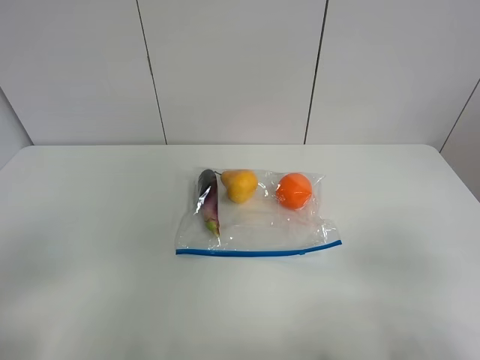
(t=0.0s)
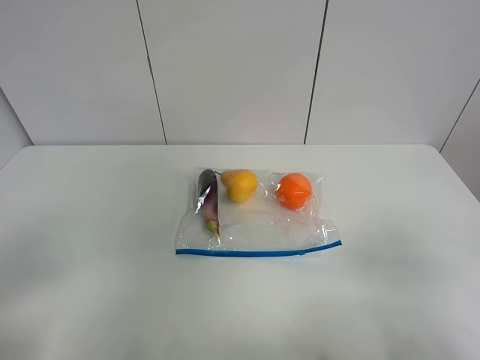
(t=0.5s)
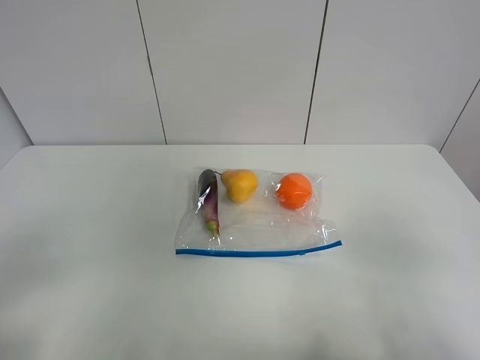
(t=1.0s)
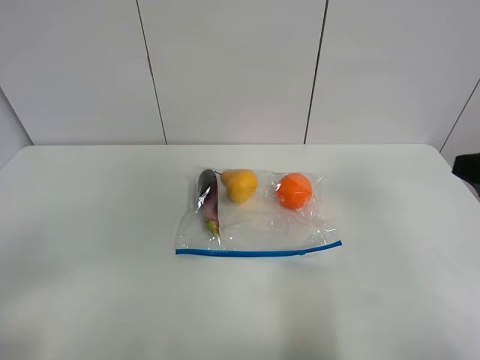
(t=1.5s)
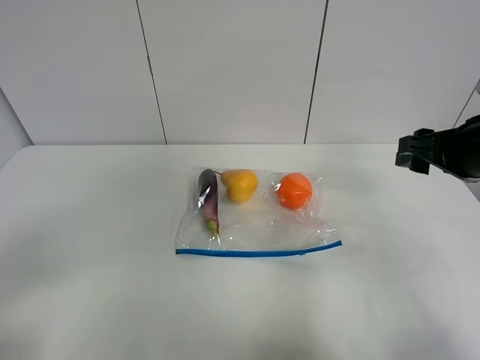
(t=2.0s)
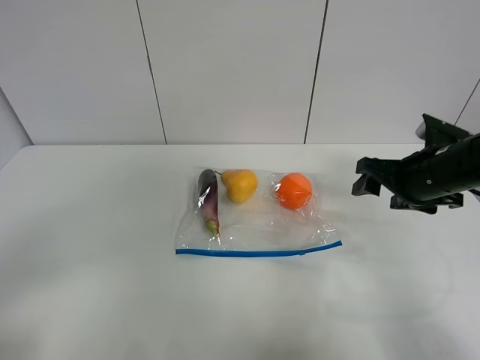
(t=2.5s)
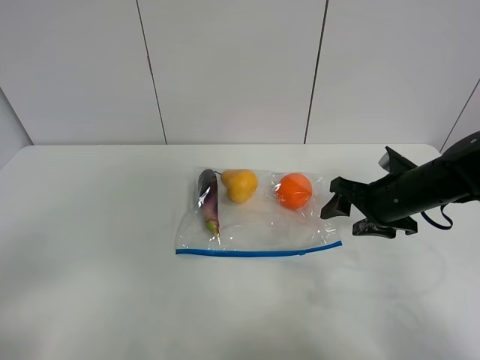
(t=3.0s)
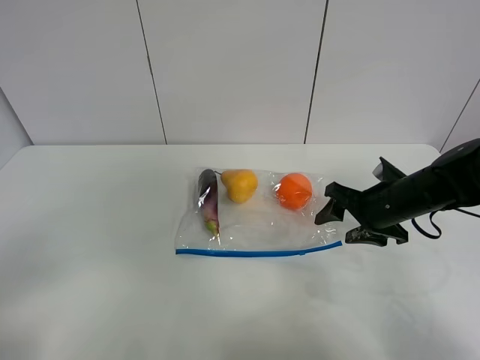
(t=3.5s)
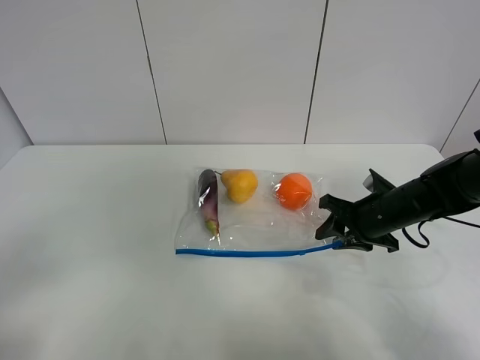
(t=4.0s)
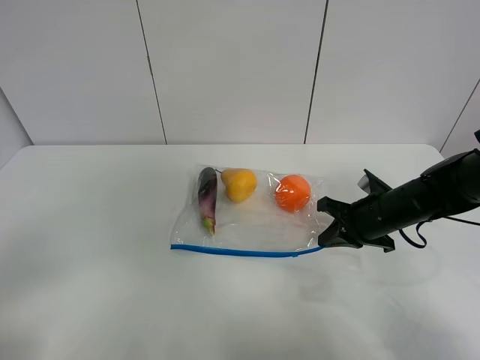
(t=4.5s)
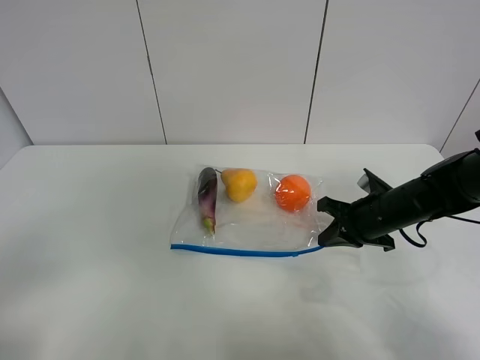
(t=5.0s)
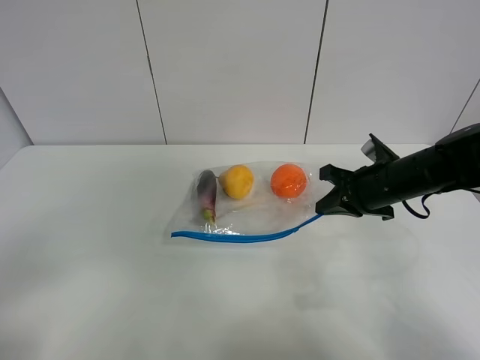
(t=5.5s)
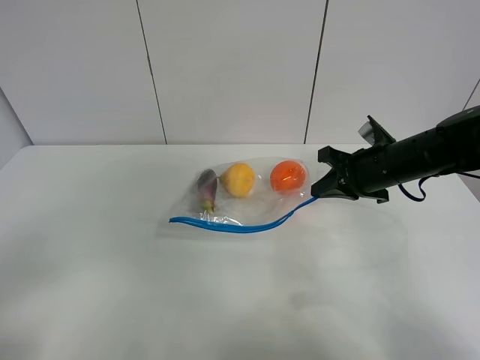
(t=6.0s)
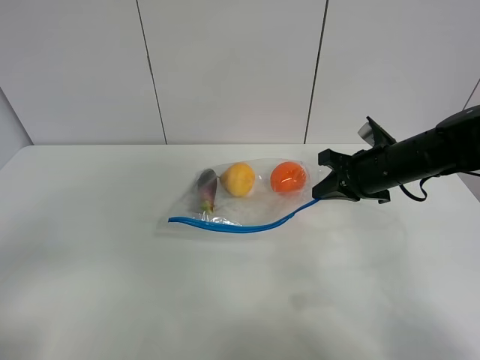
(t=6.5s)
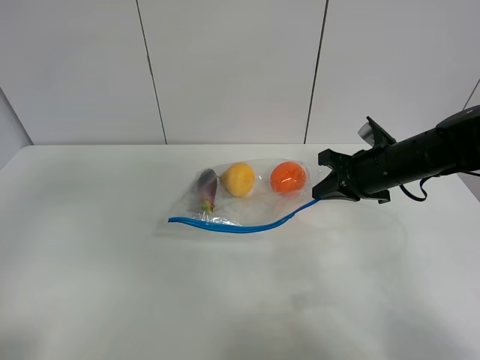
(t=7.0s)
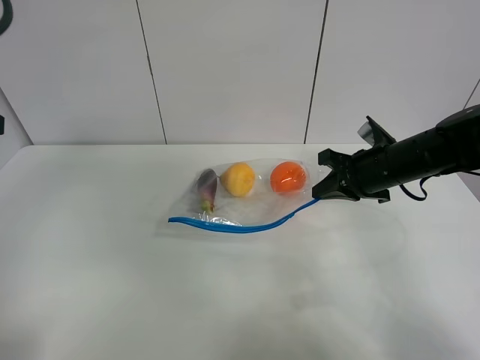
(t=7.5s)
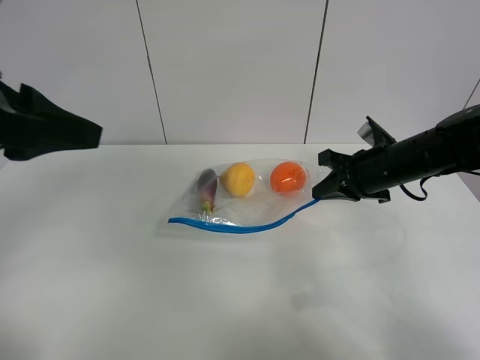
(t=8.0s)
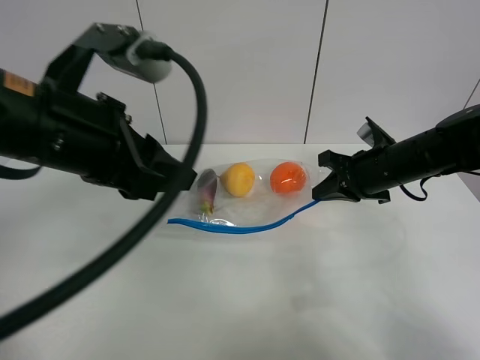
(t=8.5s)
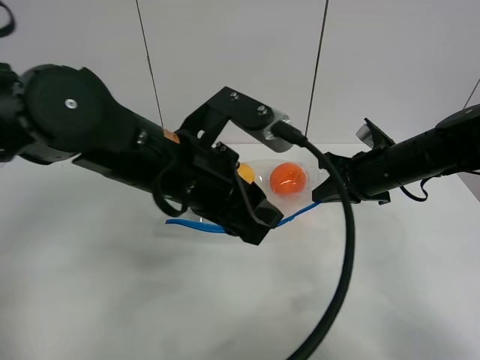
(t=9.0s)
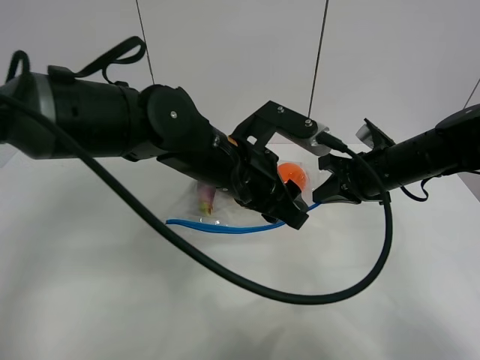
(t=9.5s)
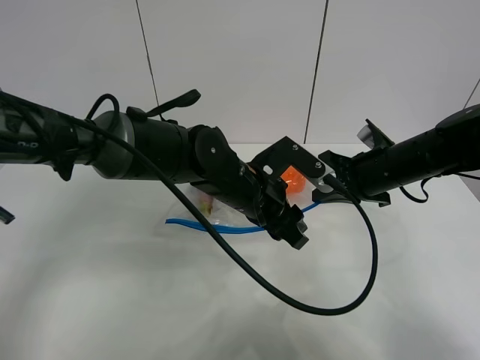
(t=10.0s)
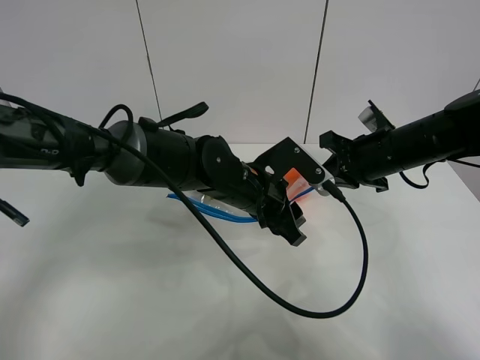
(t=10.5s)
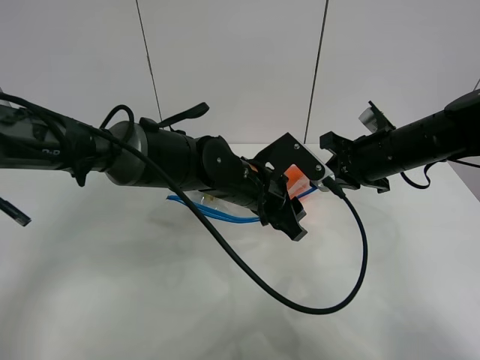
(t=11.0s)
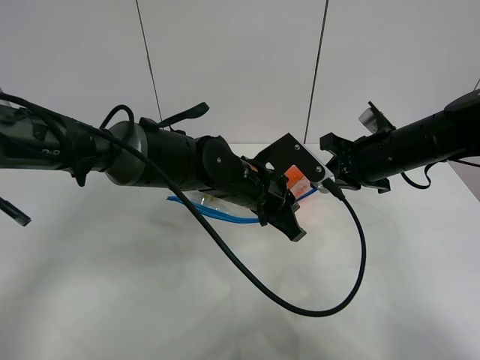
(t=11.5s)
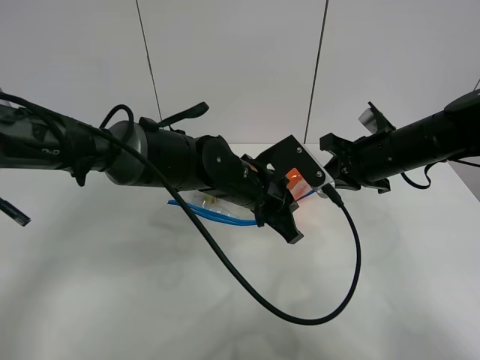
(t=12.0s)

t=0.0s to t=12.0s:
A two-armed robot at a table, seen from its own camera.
Step, t=0.0s to t=4.0s: Grasp the fruit bag with right gripper.
Step, t=4.5s to t=6.0s: Lift the fruit bag with your right gripper.
t=0.0s to t=2.0s: The right gripper moves forward, approximately 25 cm.
t=2.0s to t=4.0s: The right gripper travels downward by approximately 15 cm, and closes its fingers.
t=4.0s to t=6.0s: The right gripper heads upward, covering roughly 5 cm, and closes.
t=6.0s to t=8.0s: The left gripper moves forward, to the right and upward, roughly 25 cm.
t=8.0s to t=10.0s: The left gripper travels to the right, downward and forward by approximately 30 cm.
t=10.0s to t=12.0s: The left gripper closes.

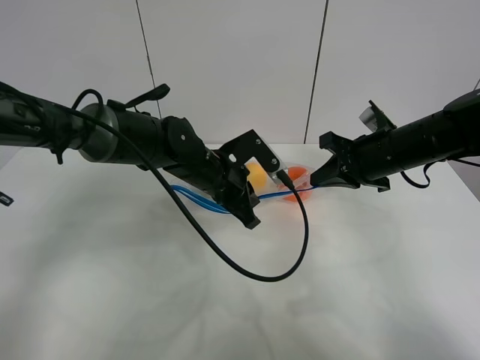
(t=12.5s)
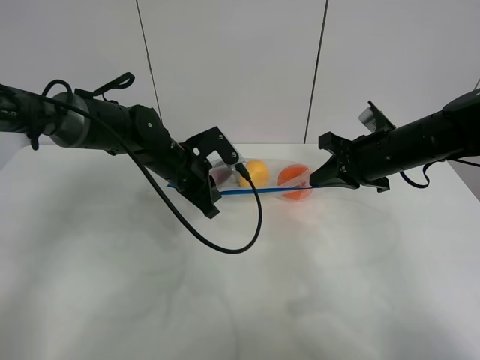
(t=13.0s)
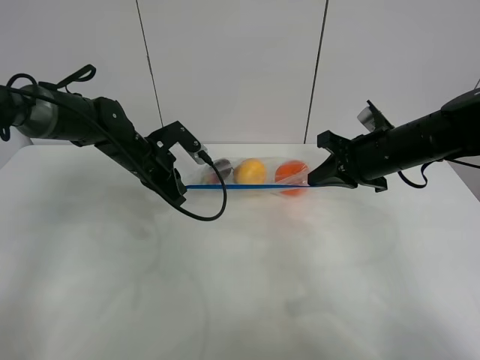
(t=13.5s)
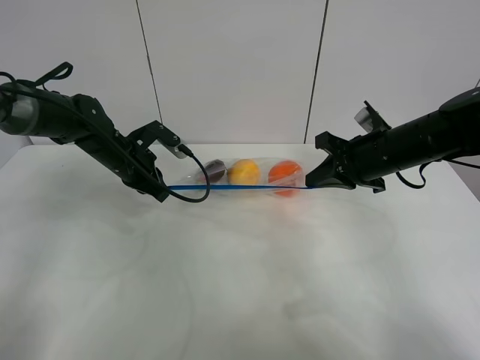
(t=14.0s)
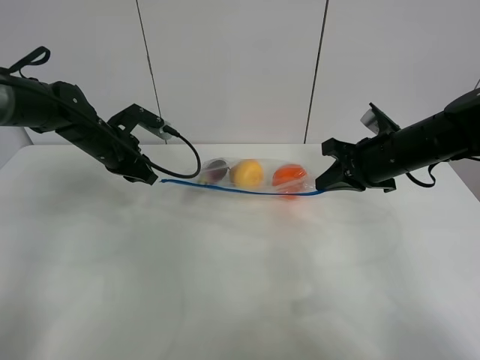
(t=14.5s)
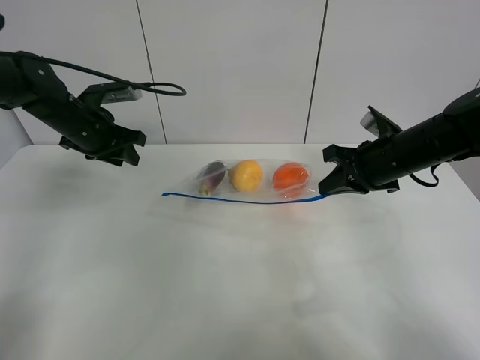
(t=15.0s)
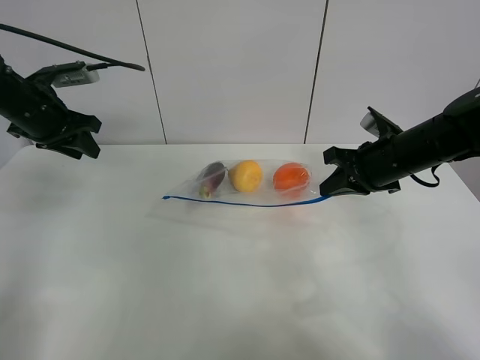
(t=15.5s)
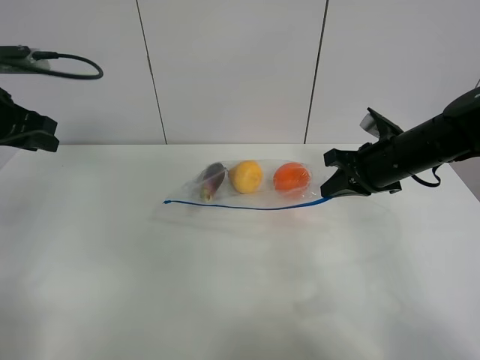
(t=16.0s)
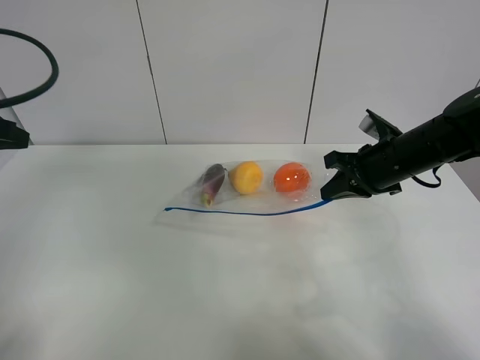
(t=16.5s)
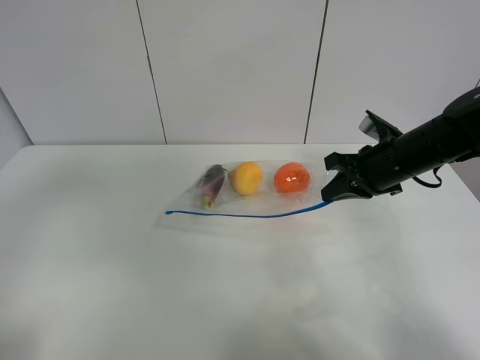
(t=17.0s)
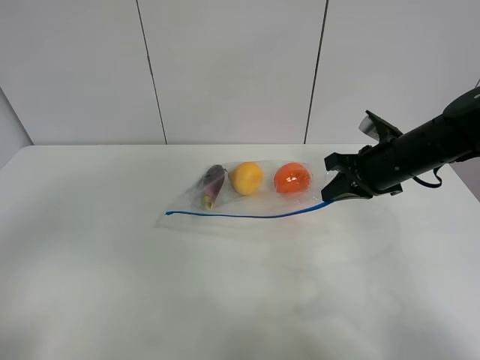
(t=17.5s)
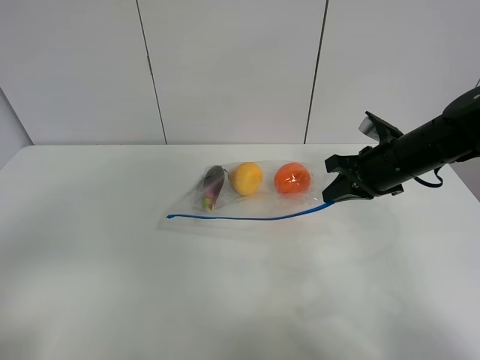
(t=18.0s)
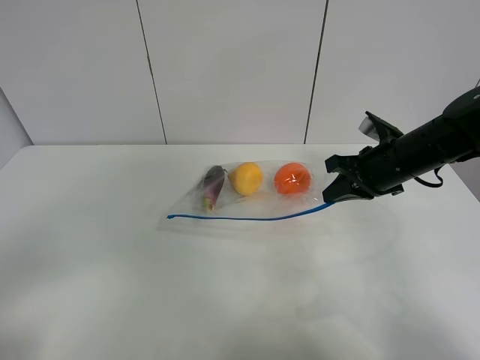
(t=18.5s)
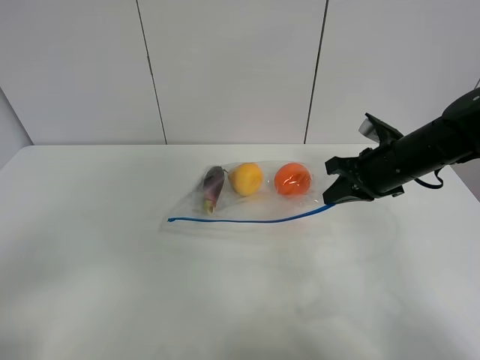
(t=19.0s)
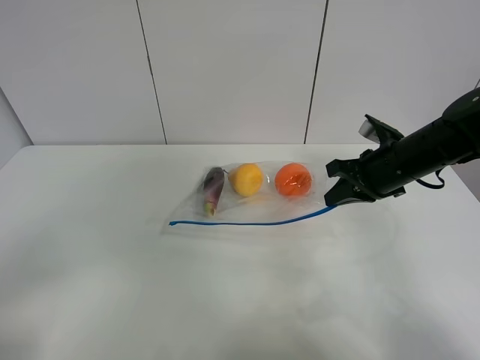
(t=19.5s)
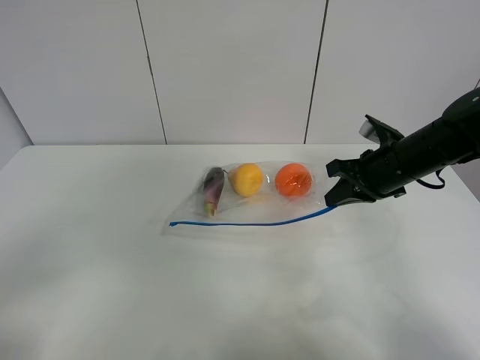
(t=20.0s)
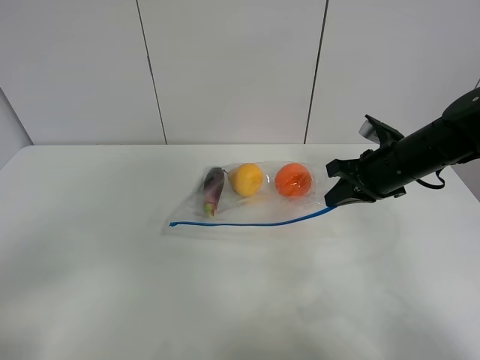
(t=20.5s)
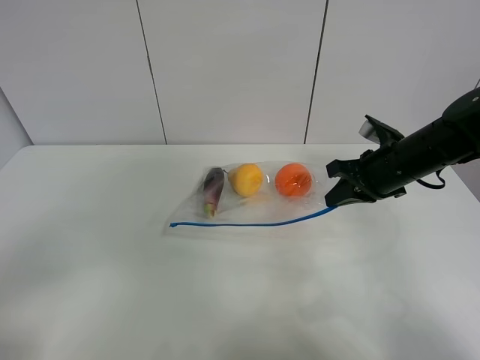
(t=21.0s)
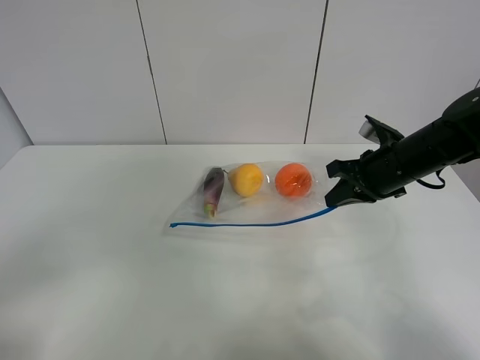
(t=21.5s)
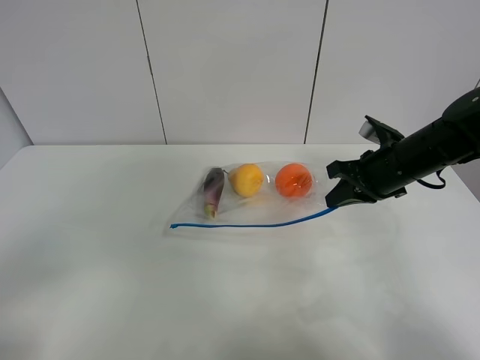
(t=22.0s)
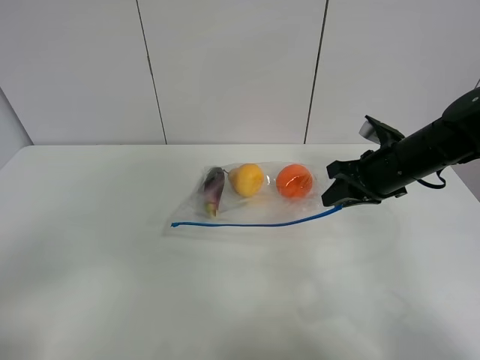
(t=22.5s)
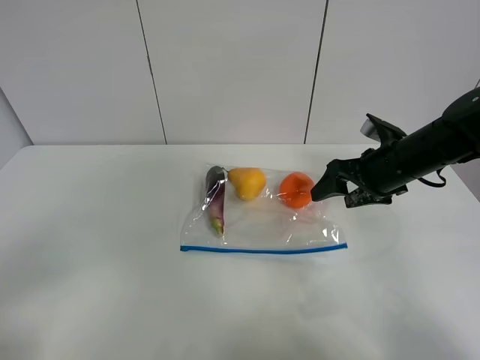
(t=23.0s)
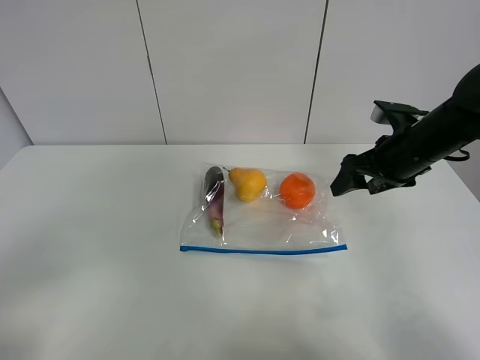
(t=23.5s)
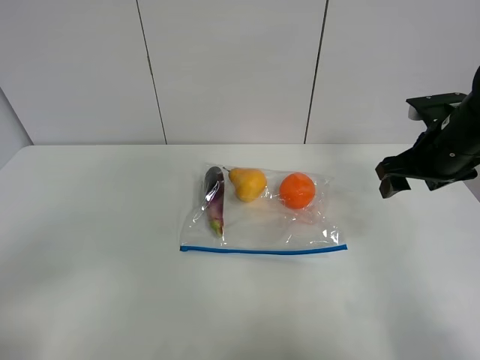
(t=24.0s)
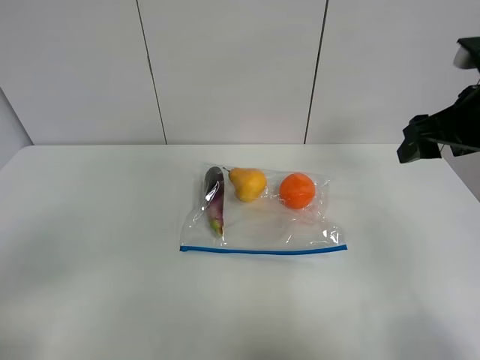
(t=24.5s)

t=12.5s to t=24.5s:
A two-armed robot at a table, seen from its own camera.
Step, t=12.5s to t=14.5s: Pull the fruit bag with left gripper.
t=12.5s to t=14.5s: The left gripper travels to the left by about 15 cm, and opens its fingers.
t=14.5s to t=16.5s: The left gripper shifts roughly 25 cm backward, upward and to the left.
t=16.5s to t=18.5s: The left gripper is displaced backward by about 25 cm.
t=18.5s to t=20.5s: The grippers make only small movements.
t=20.5s to t=22.5s: The right gripper opens up.
t=22.5s to t=24.5s: The right gripper is displaced upward and backward by roughly 15 cm, and opens up.

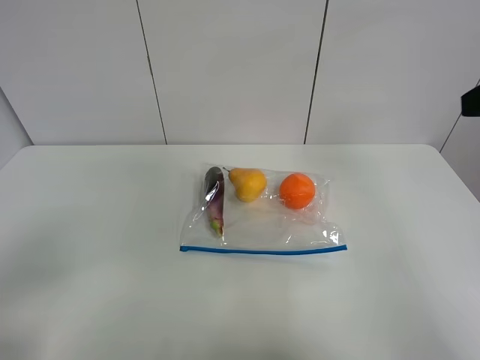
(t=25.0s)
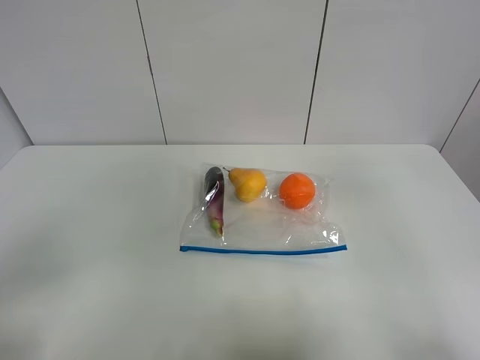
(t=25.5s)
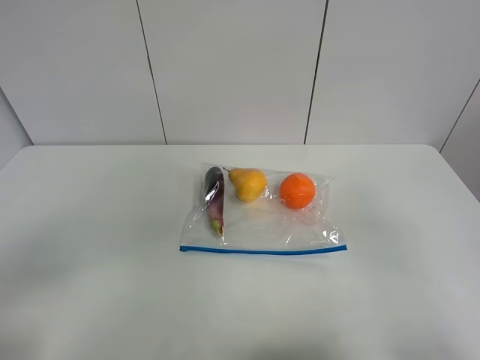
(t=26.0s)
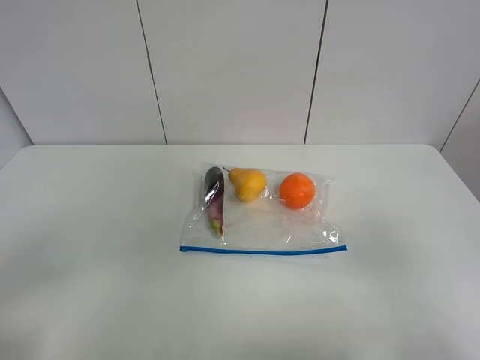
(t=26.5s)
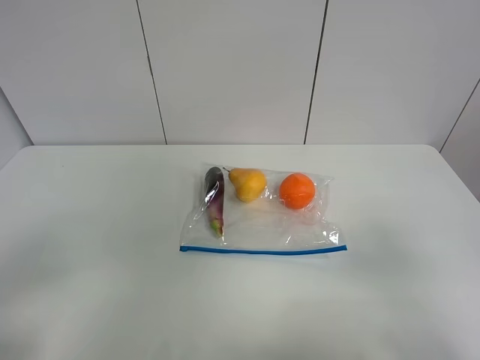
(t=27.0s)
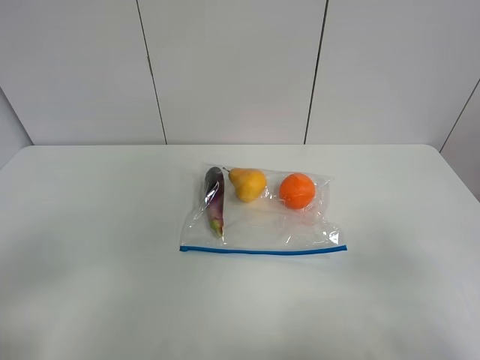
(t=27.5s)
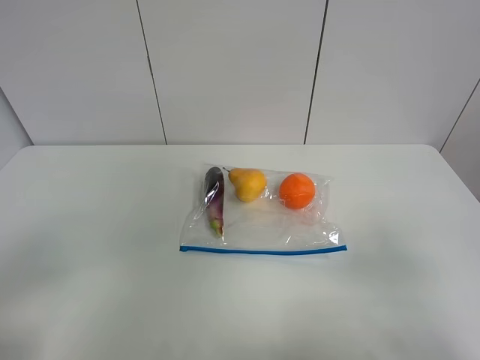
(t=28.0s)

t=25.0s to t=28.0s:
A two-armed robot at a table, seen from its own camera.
t=25.0s to t=26.5s: The right gripper heads backward and downward, covering approximately 20 cm.
